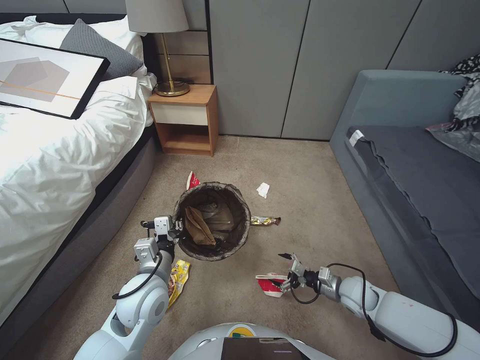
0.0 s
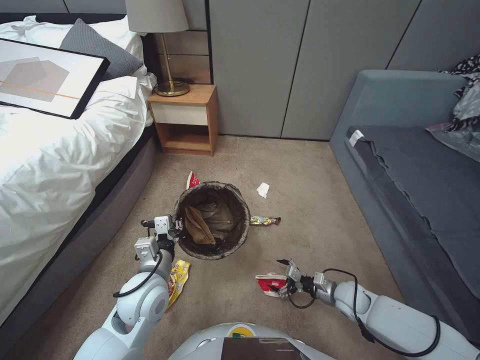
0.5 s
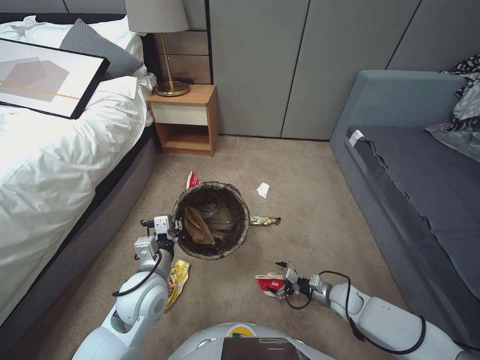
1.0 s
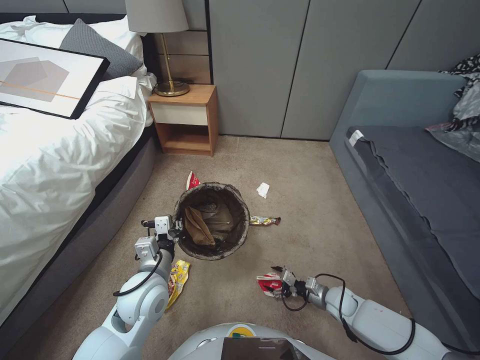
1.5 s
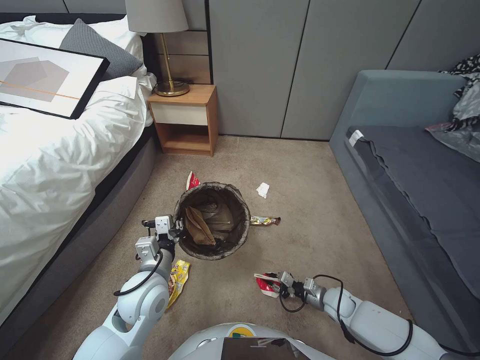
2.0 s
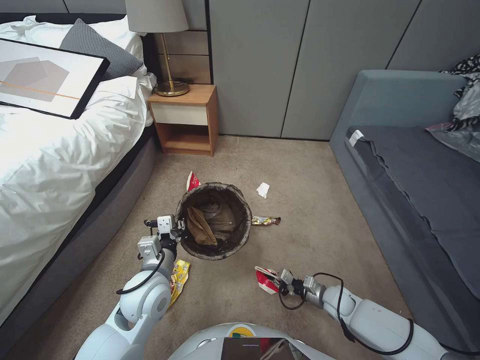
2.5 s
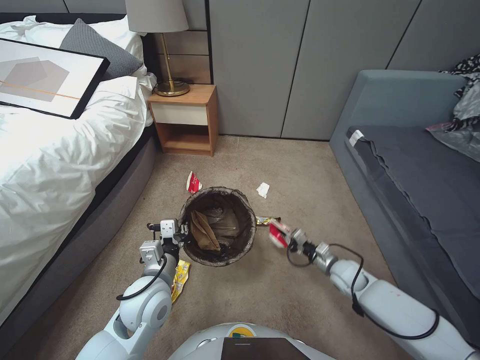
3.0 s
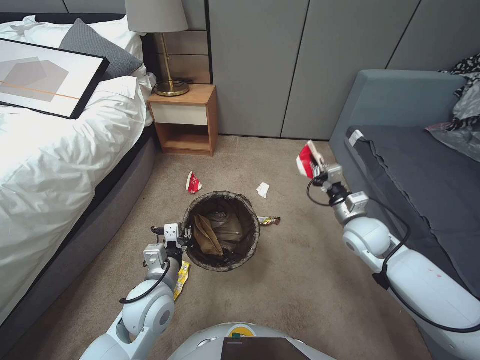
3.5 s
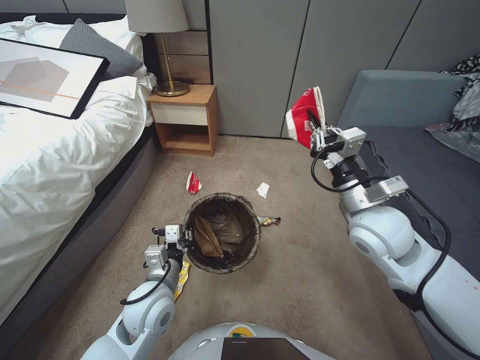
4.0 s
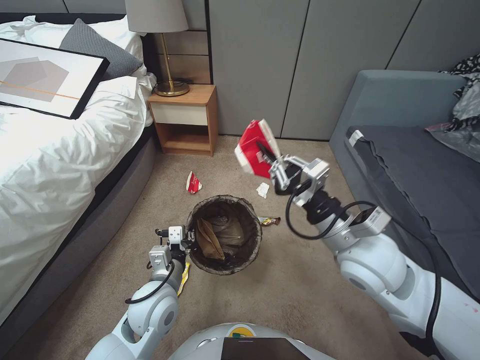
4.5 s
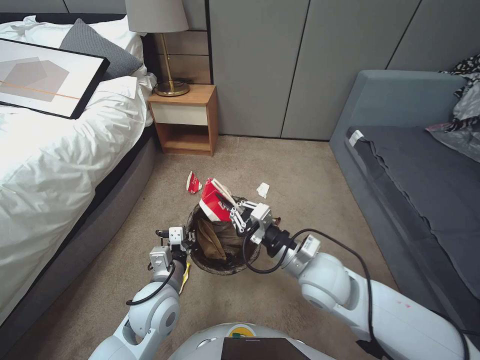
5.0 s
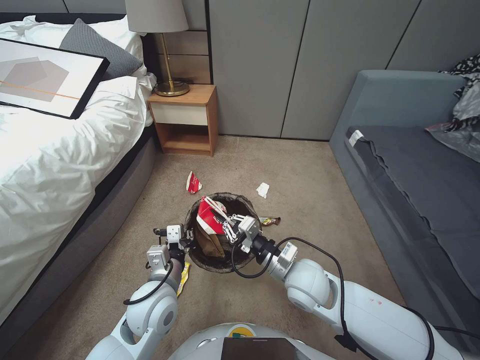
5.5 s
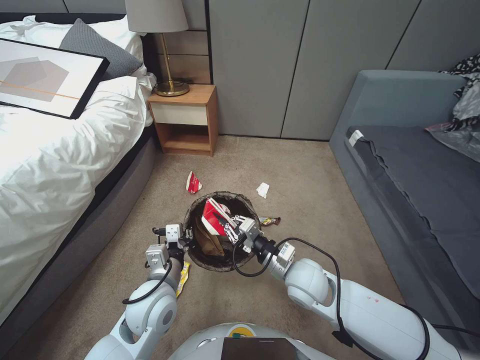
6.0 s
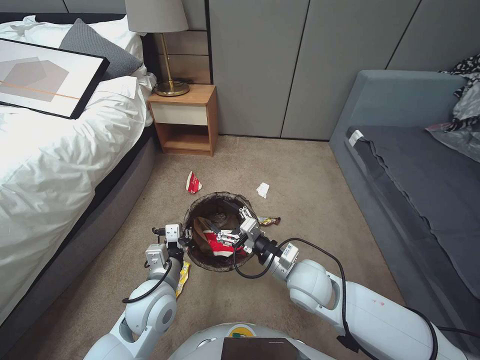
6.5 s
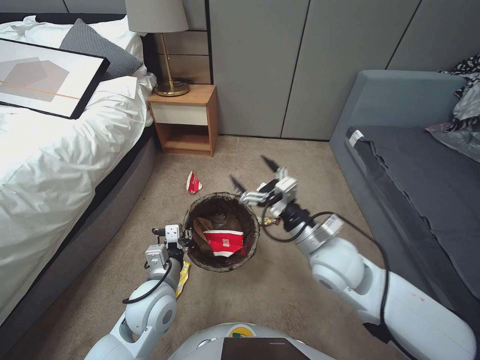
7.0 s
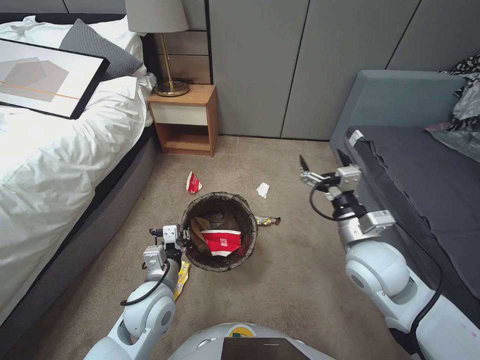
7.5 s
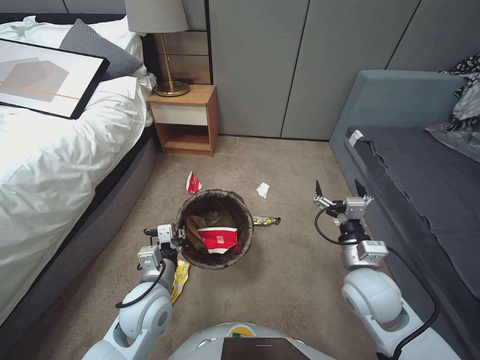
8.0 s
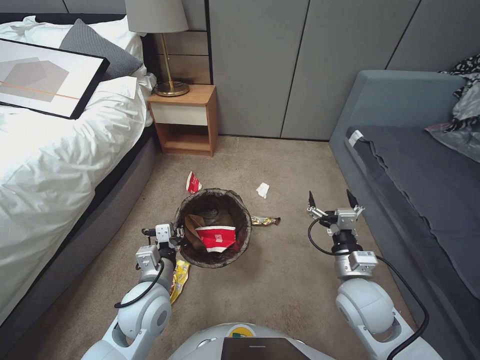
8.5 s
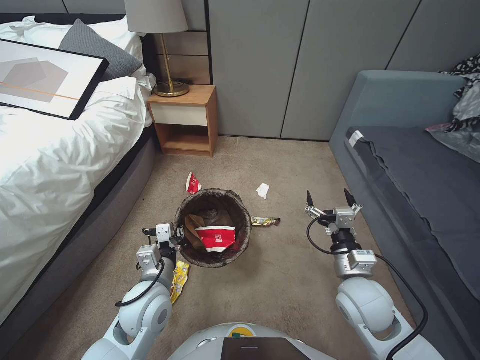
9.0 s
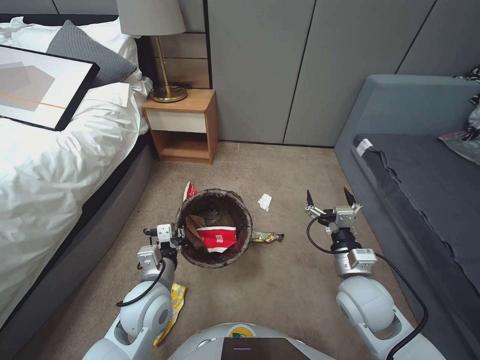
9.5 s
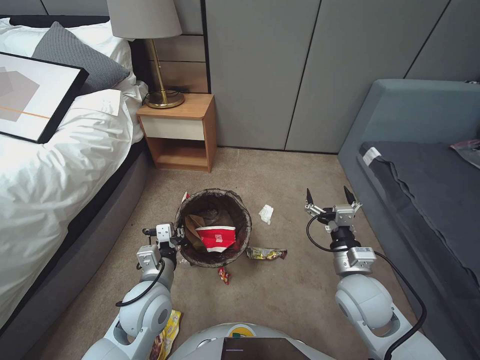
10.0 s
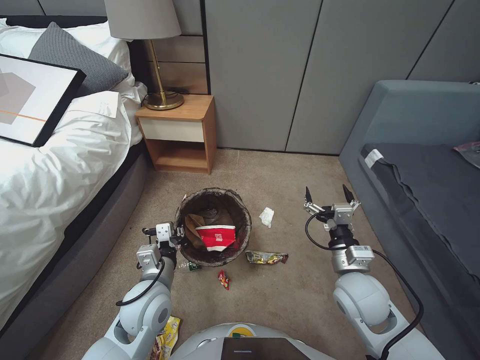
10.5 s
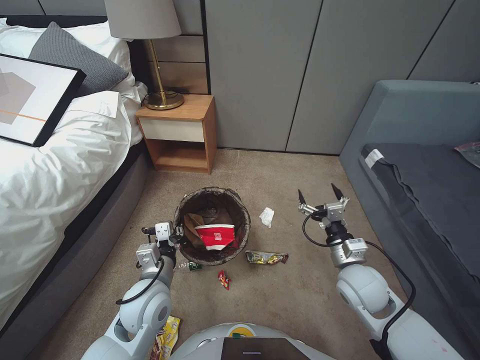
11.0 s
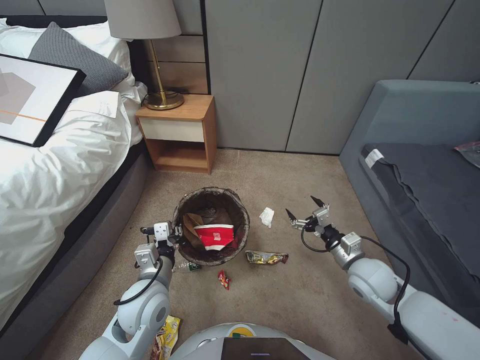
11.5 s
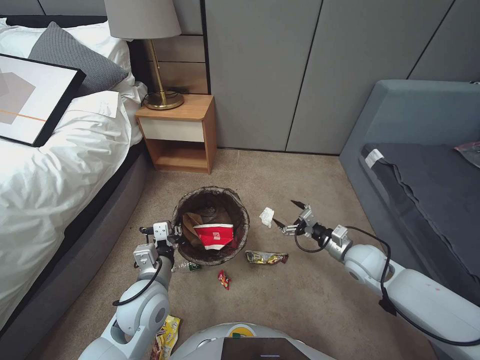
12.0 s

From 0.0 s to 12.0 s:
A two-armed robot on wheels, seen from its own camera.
Task of the whole recording: Pick up the trash bin, then pick up the garbage from the floor and place it into the trash bin.
From 0.0 s to 2.0 s: The right gripper heads downward, covering some 10 cm, and closes its fingers.
From 2.0 s to 4.0 s: The right gripper shifts some 40 cm upward.
From 4.0 s to 6.0 s: The right gripper shifts roughly 20 cm downward and to the left.
From 6.0 s to 8.0 s: The right gripper moves to the right and upward, roughly 15 cm, and opens.
From 10.0 s to 12.0 s: The right gripper goes roughly 10 cm to the right and forward.

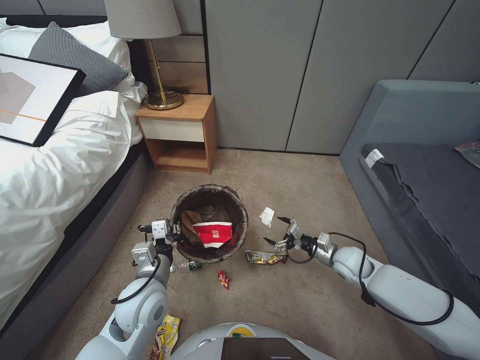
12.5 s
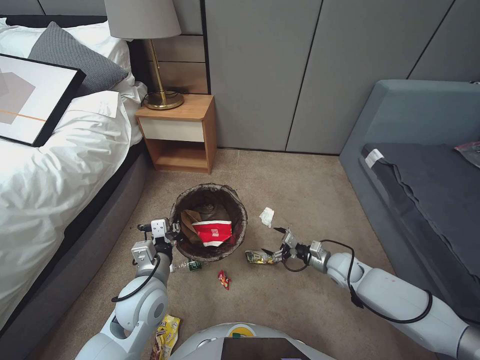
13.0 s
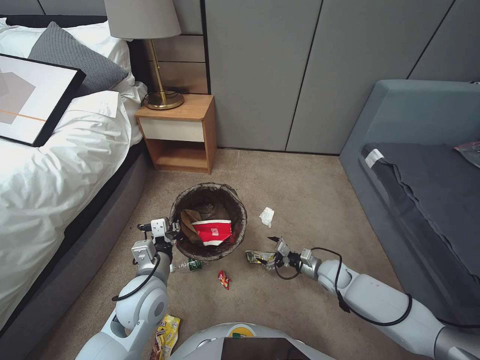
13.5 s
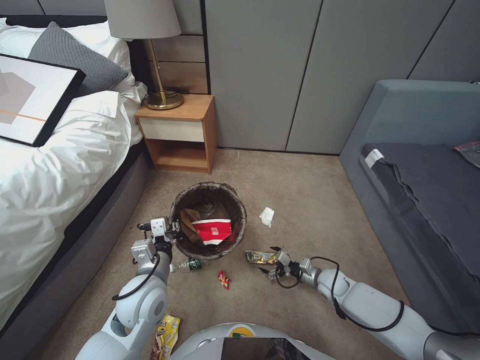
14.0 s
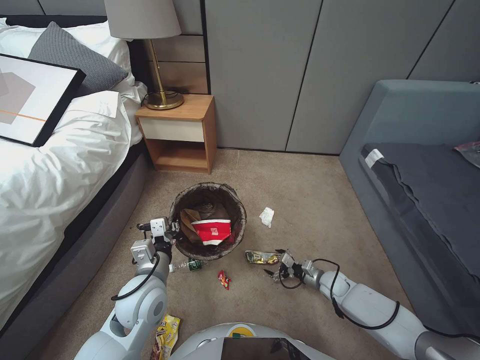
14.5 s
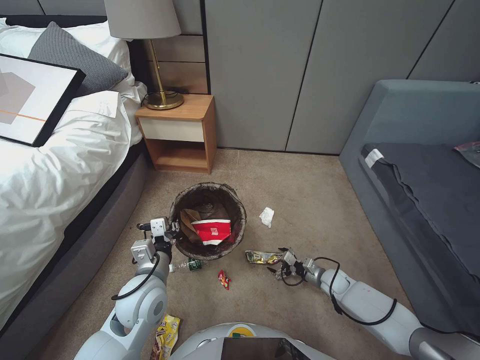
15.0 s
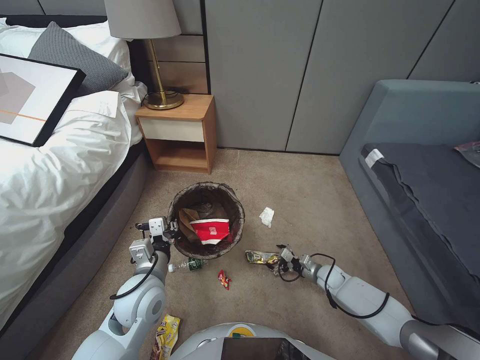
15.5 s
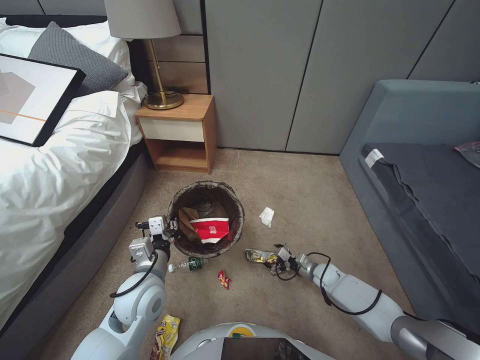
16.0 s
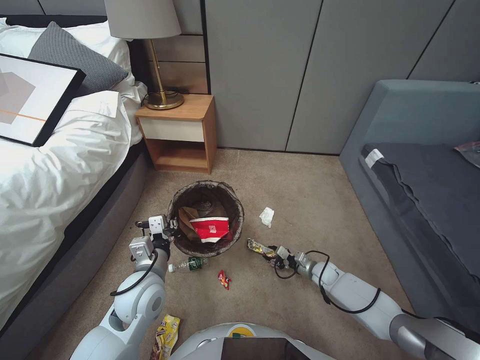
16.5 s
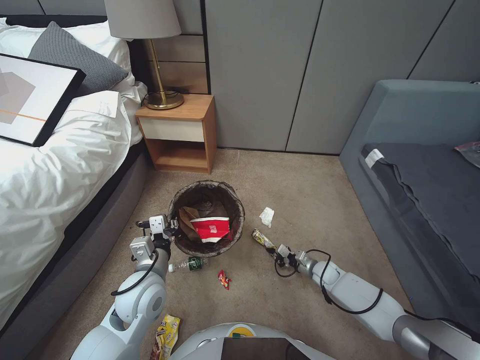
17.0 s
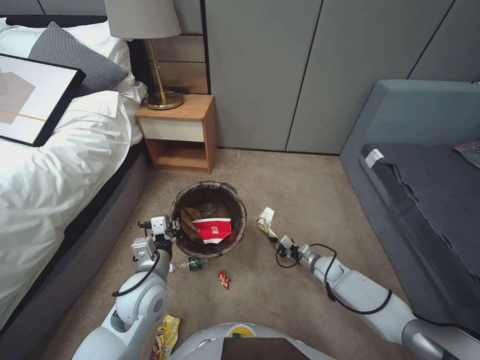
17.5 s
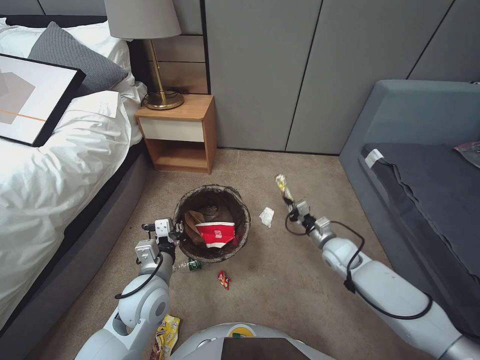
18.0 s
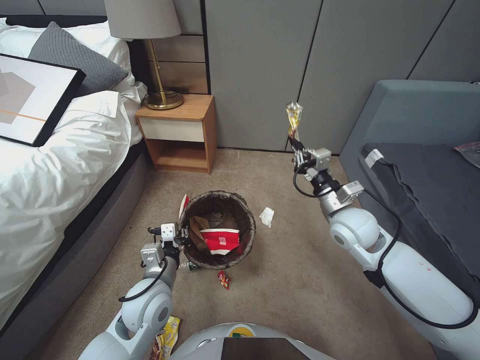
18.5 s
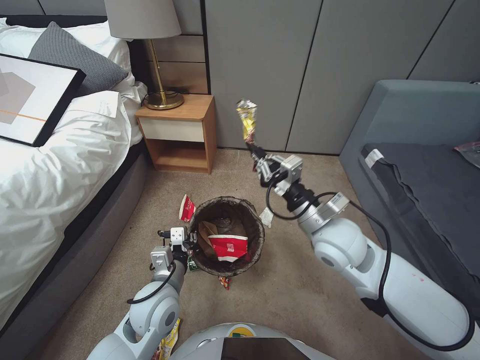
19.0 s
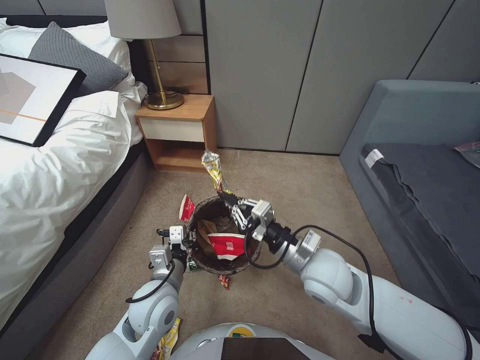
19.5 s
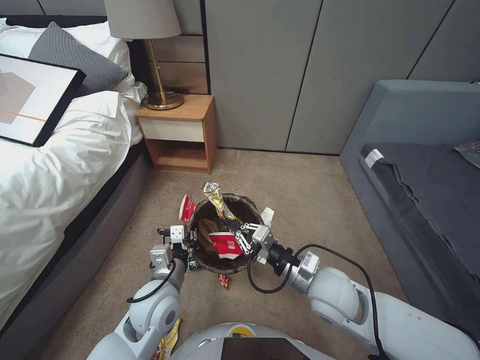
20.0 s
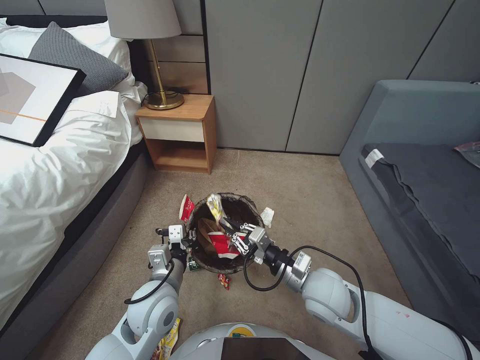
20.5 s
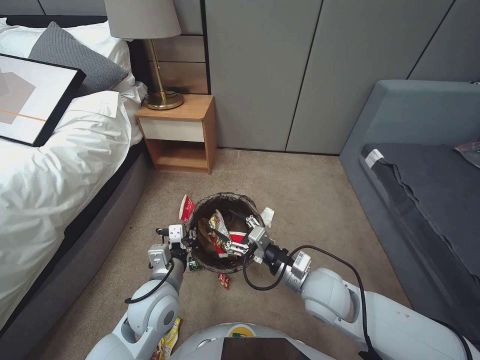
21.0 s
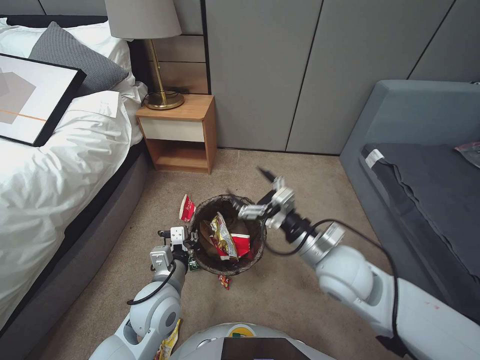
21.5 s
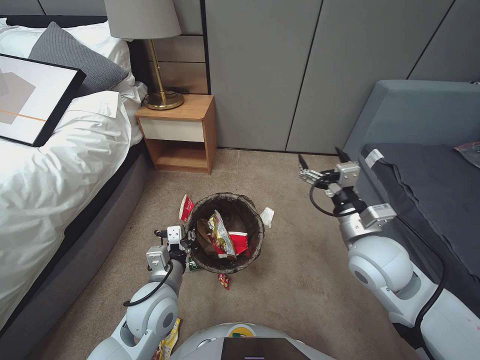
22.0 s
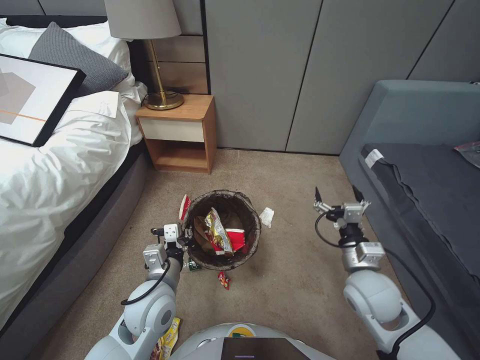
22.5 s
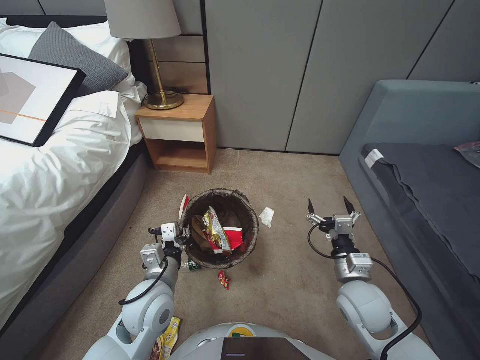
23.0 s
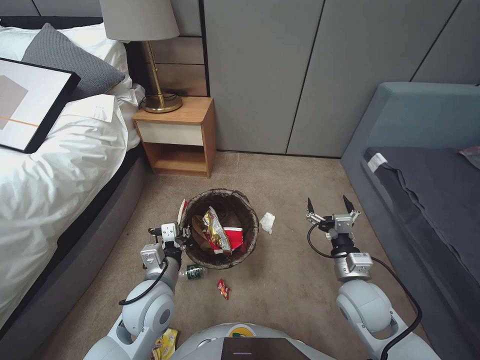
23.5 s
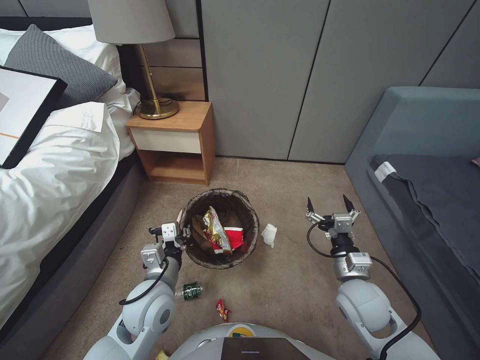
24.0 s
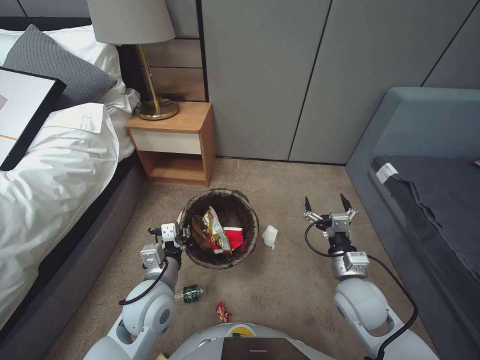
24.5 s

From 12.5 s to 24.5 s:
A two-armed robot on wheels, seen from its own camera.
Task of the whole recording: Pick up the trash bin, then pick up the garbage from the floor and place it into the trash bin.
From 12.5 s to 14.5 s: The right gripper goes roughly 15 cm downward.
From 14.5 s to 16.5 s: The right gripper closes its fingers.
From 16.5 s to 18.5 s: The right gripper goes about 20 cm upward, and closes its fingers.
From 18.5 s to 20.5 s: The right gripper moves backward, to the left and upward, some 20 cm.
From 20.5 s to 22.5 s: The right gripper shifts about 10 cm to the right, travels upward and back again, approximately 10 cm each way, and opens up.

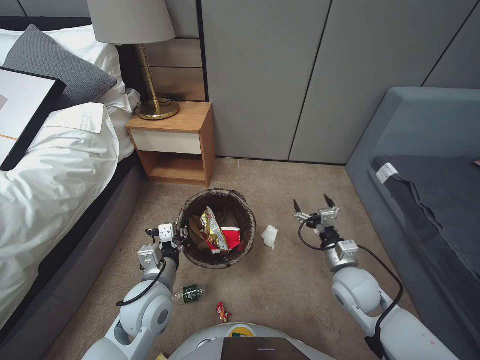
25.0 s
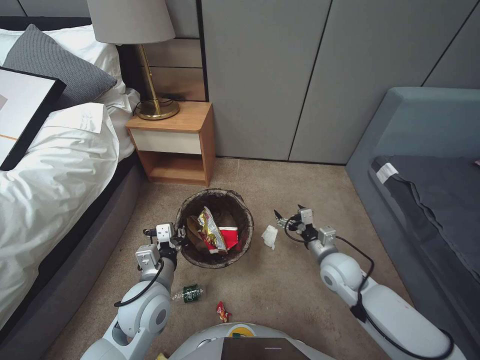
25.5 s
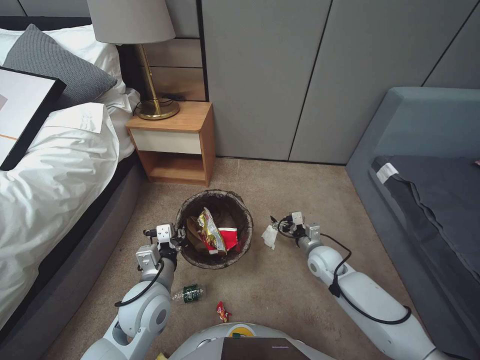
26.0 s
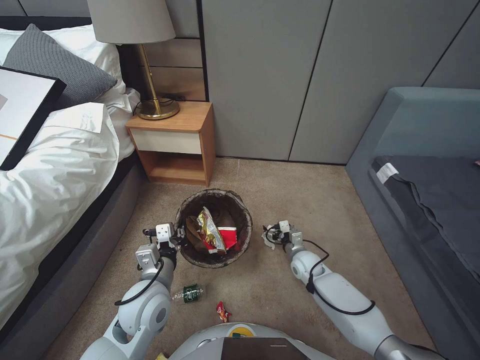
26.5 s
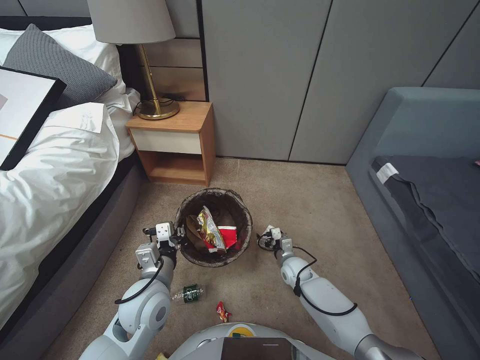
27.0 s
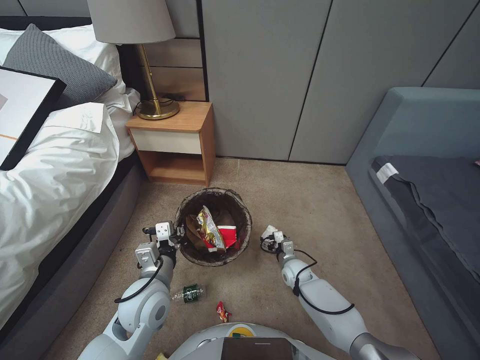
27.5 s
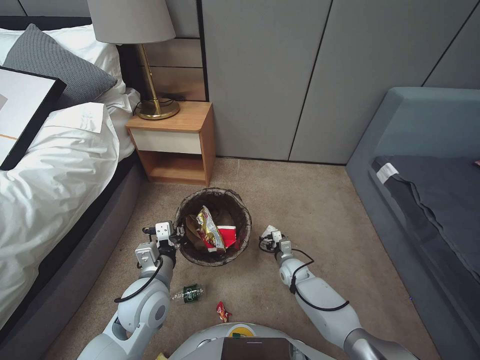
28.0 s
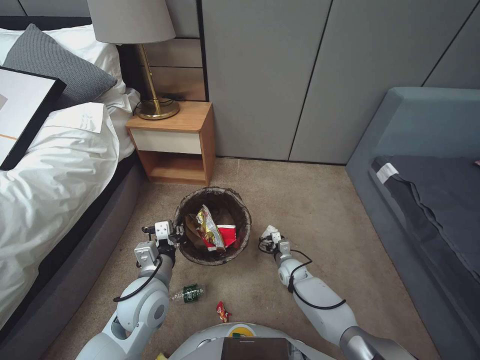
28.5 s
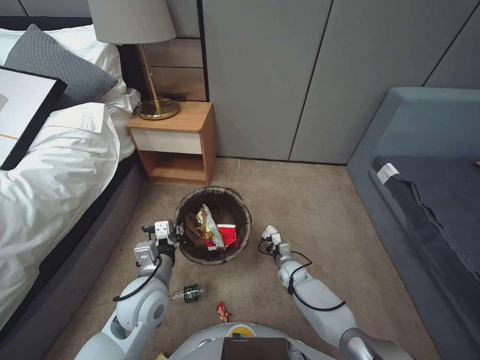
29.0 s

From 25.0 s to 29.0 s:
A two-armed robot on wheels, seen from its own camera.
Task of the whole recording: Pick up the trash bin, then pick up the garbage from the floor and place it into the trash bin.
From 25.0 s to 27.0 s: The right gripper moves downward and forward, some 20 cm.
From 27.0 s to 29.0 s: The right gripper goes about 5 cm downward.
